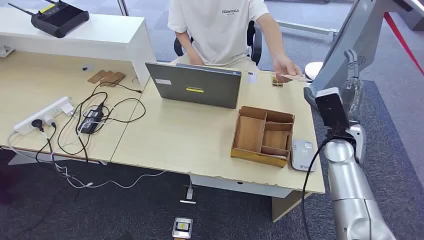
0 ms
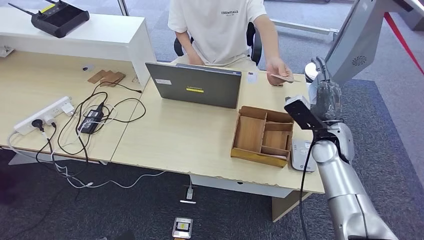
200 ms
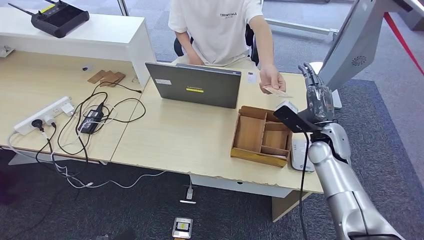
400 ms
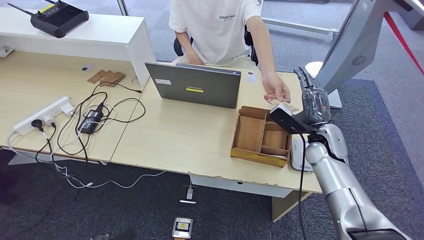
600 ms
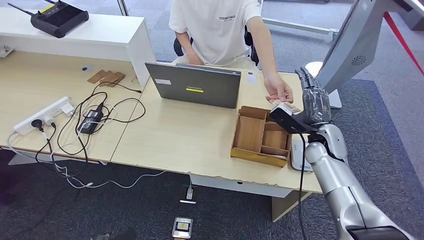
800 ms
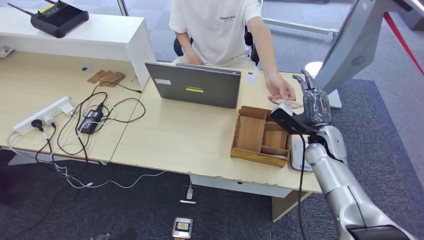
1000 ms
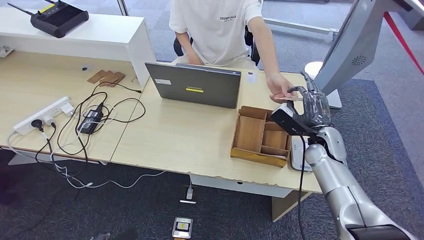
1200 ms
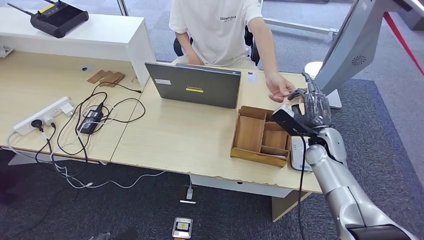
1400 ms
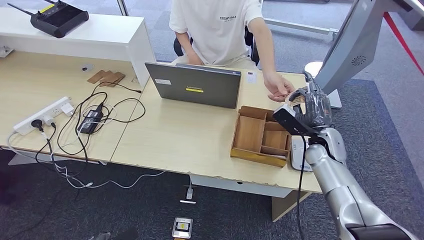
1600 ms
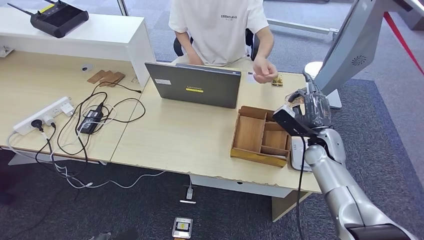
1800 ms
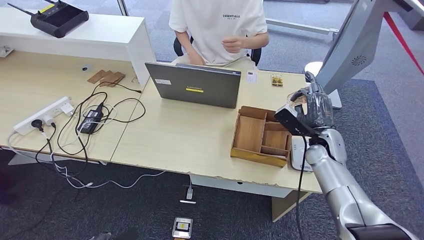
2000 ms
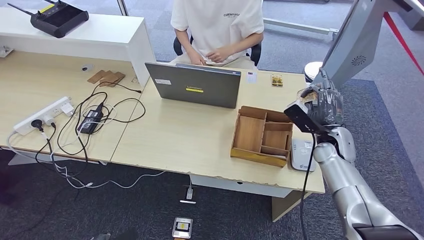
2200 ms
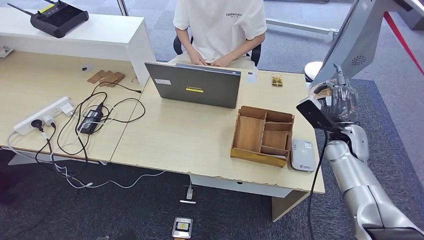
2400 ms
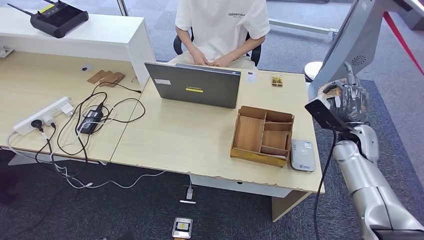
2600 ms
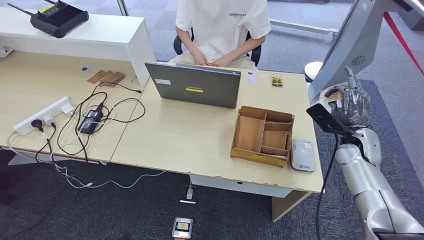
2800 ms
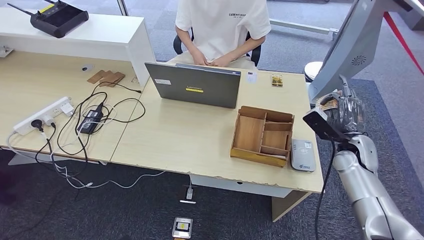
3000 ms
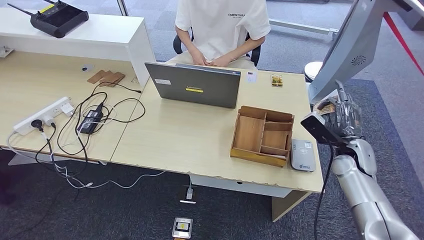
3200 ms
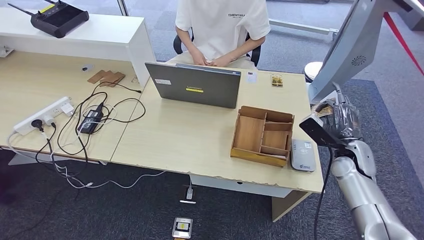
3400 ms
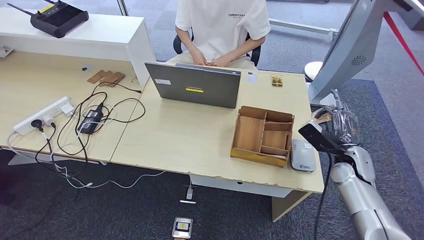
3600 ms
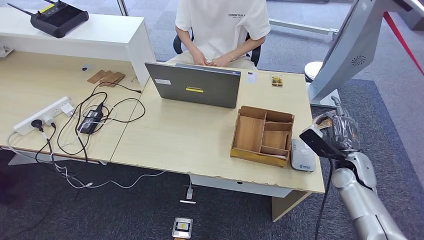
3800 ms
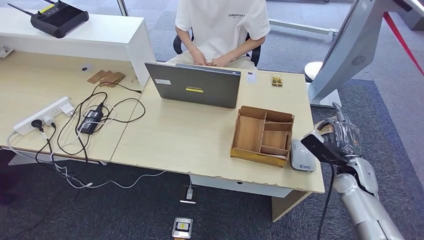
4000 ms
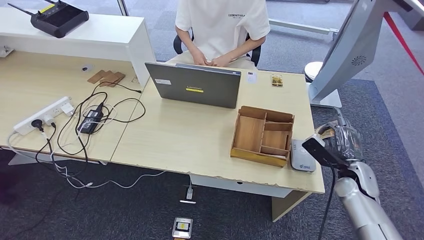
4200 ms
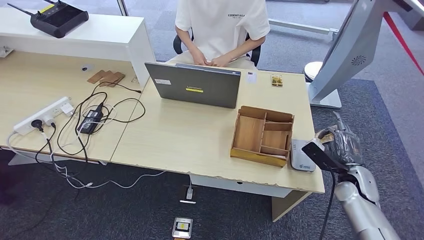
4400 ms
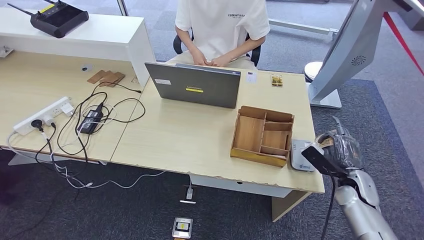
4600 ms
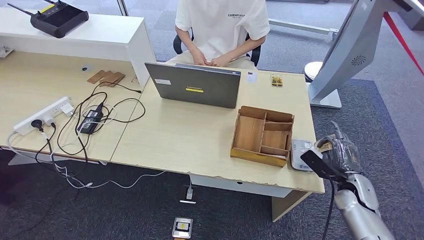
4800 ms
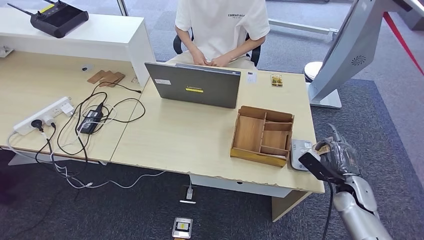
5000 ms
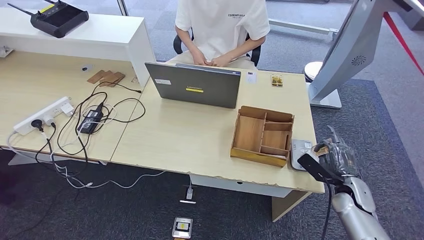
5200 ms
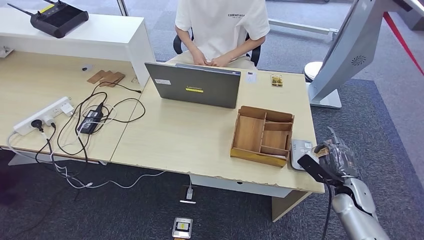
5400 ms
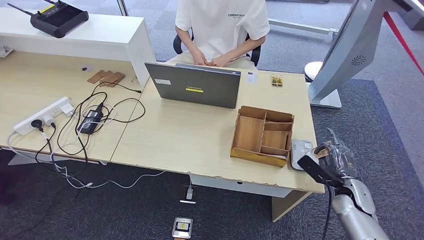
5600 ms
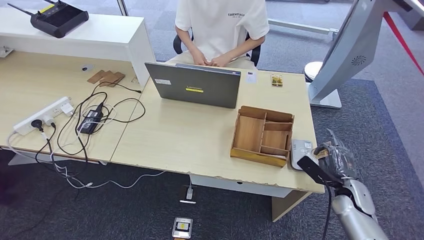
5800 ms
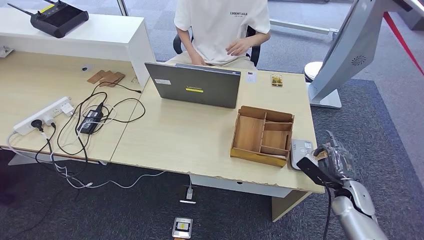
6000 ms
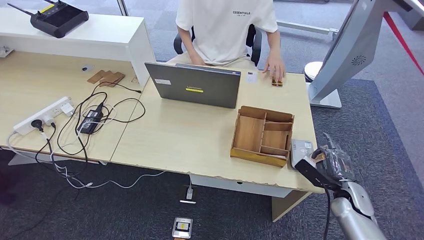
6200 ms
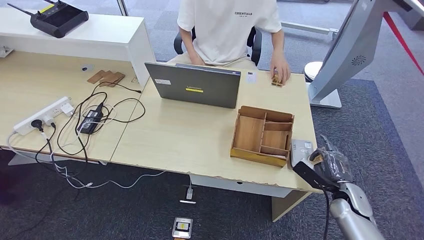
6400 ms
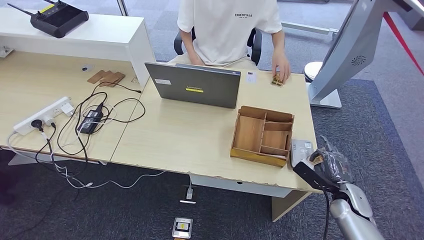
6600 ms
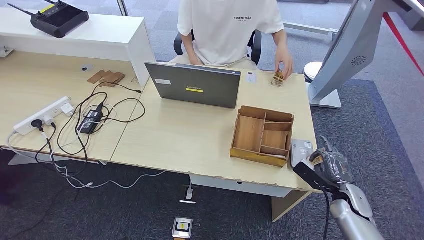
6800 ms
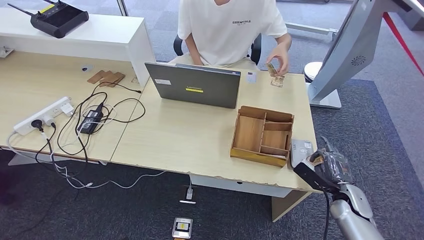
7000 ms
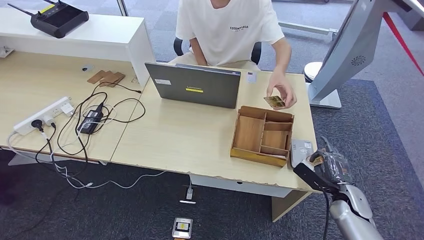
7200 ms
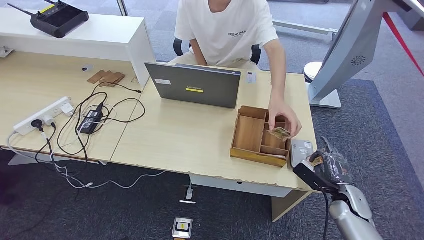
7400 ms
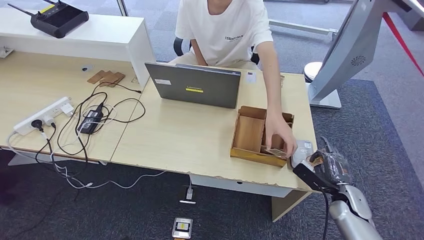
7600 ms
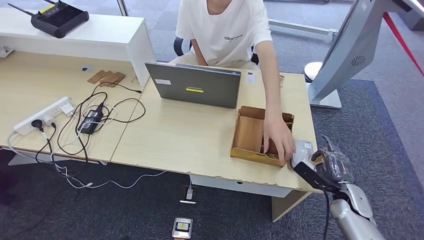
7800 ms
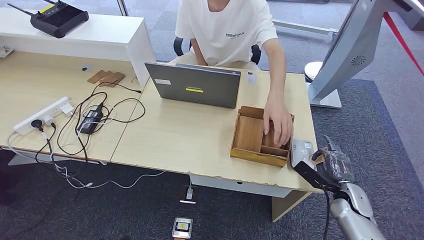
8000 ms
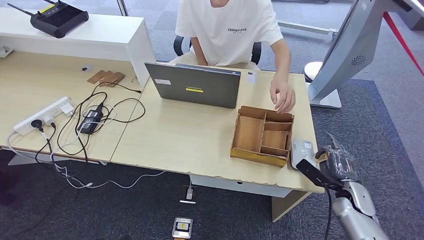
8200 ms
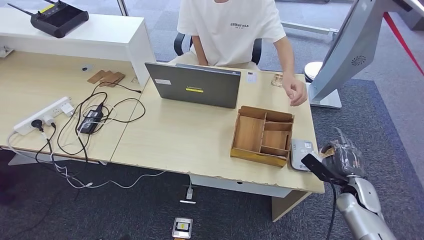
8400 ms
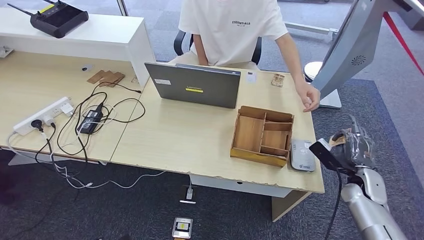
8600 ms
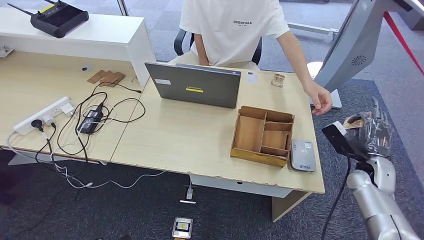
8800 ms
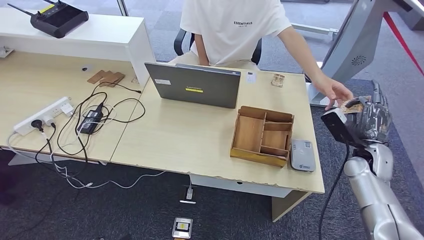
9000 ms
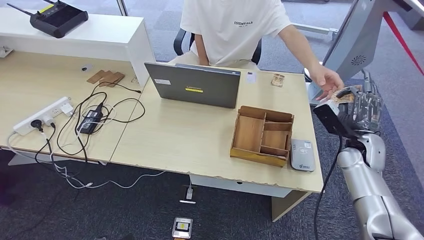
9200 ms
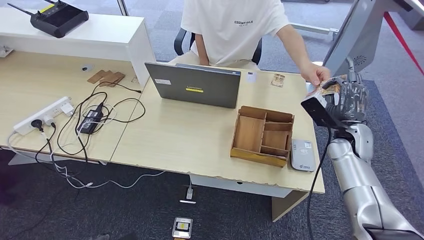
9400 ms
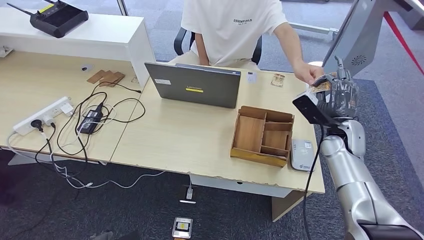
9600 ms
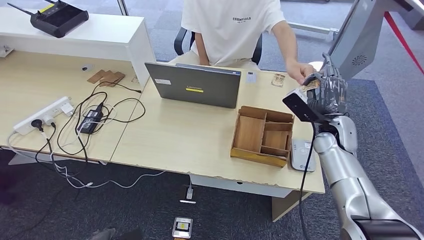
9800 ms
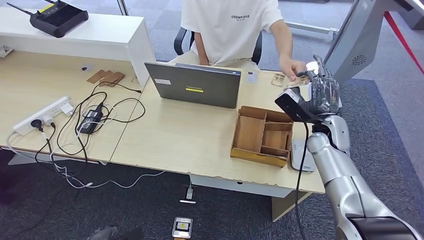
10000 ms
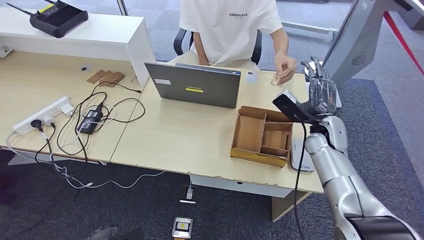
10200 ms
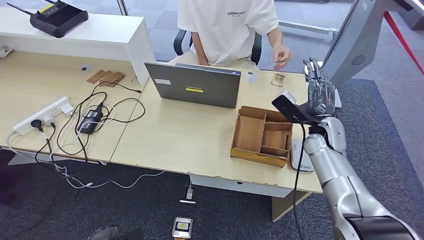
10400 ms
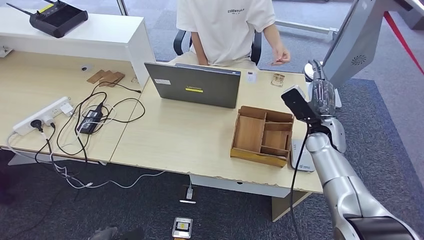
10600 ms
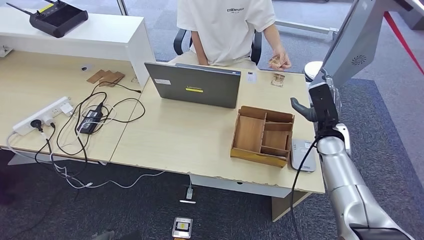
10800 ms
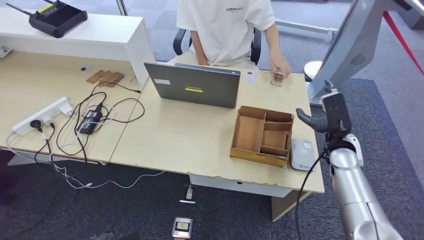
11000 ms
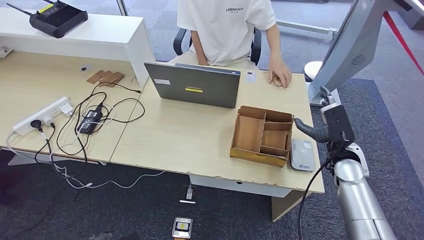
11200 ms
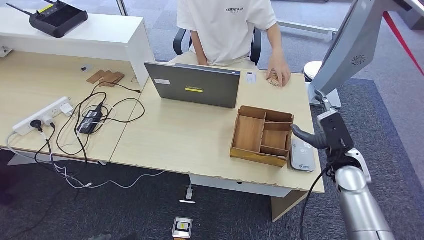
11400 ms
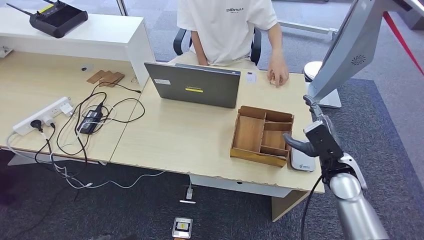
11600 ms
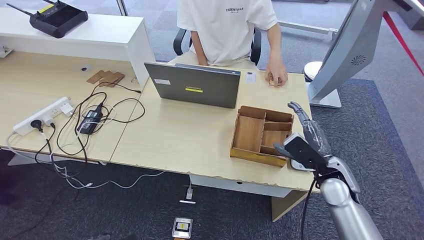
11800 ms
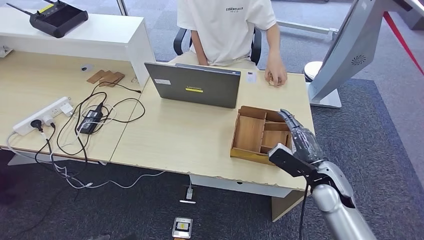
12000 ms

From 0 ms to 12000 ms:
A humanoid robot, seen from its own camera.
Step, from 0 ms to 1800 ms: Take the ID card from the person's hand.
Step, from 2000 ms to 8000 ms: Place the ID card on the card reader.
Step, from 8400 ms to 10800 ms: Hand the ID card to the person.
From 1600 ms to 3000 ms: The right hand shifts about 5 cm to the right.
From 3000 ms to 4400 ms: The right hand heads downward and backward, covering about 10 cm.
From 4400 ms to 6000 ms: The hands move only a little.
From 6000 ms to 7600 ms: The hands move only a little.
From 7600 ms to 9000 ms: The right hand moves upward and forward, roughly 15 cm.
From 9000 ms to 10400 ms: The right hand travels to the left by some 10 cm.
From 10400 ms to 12000 ms: The right hand moves backward and downward, about 15 cm.

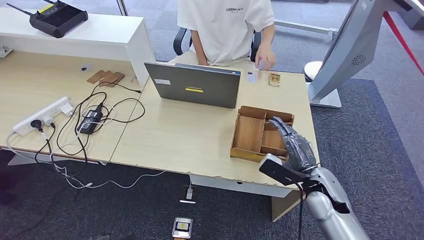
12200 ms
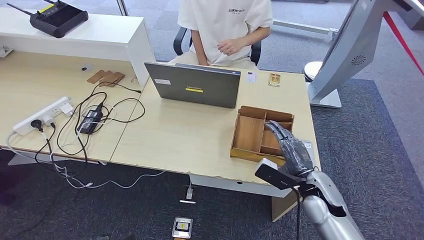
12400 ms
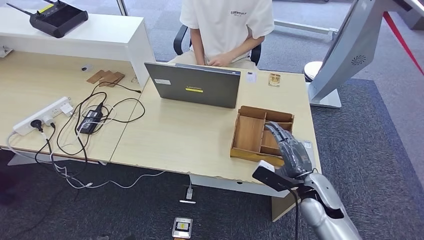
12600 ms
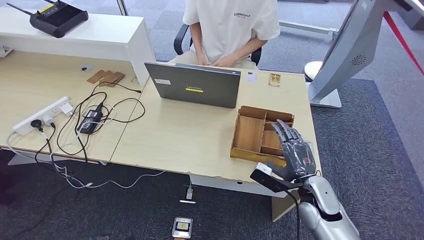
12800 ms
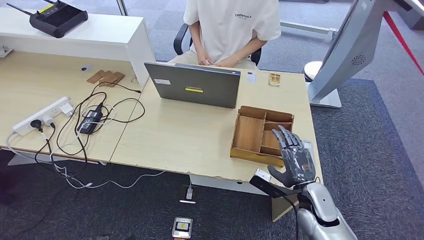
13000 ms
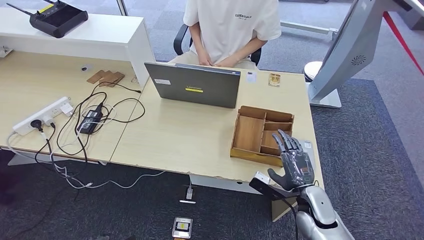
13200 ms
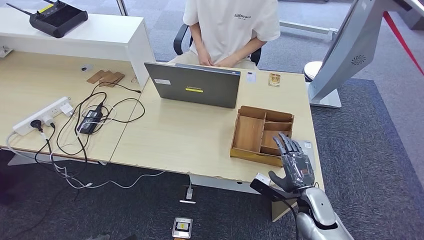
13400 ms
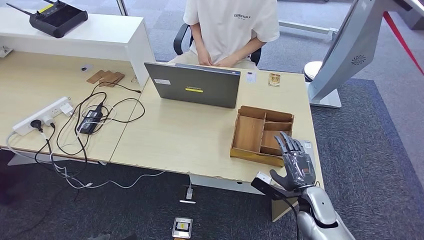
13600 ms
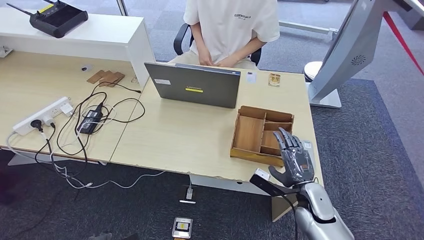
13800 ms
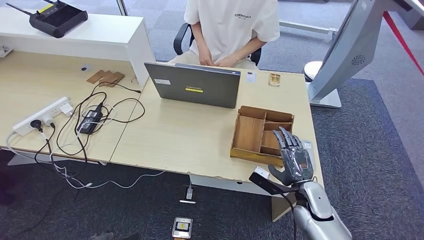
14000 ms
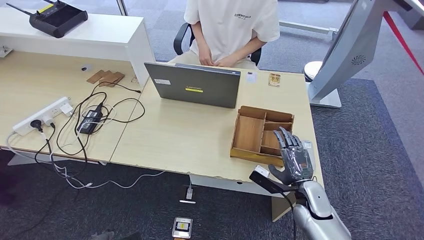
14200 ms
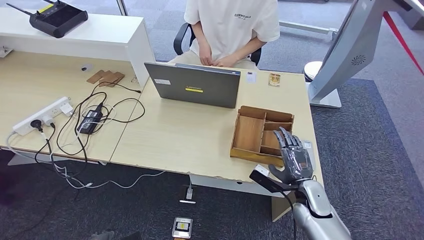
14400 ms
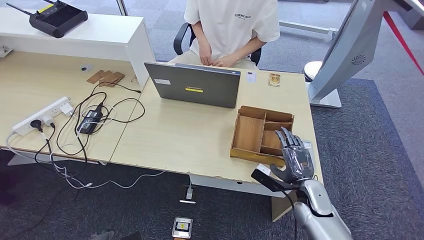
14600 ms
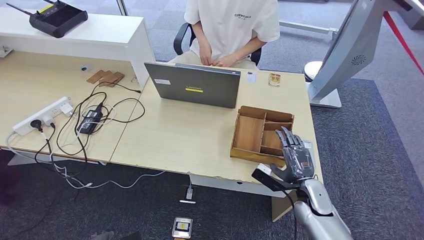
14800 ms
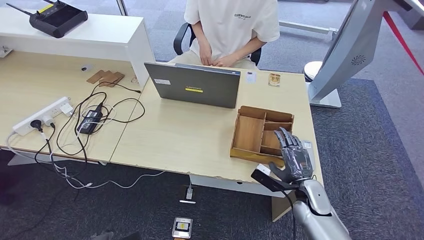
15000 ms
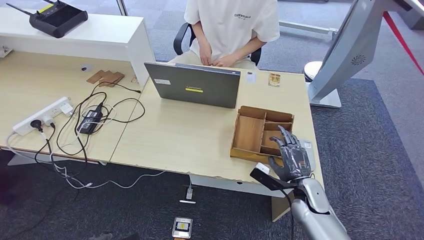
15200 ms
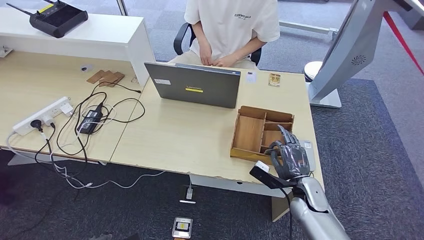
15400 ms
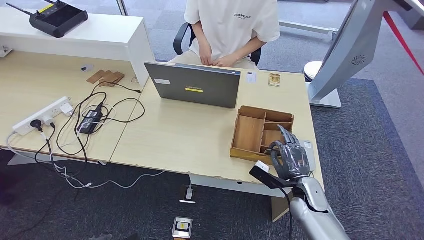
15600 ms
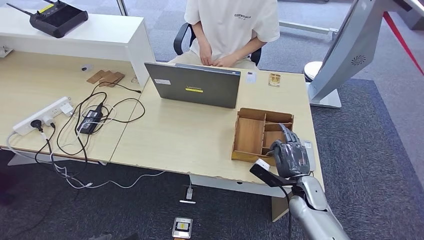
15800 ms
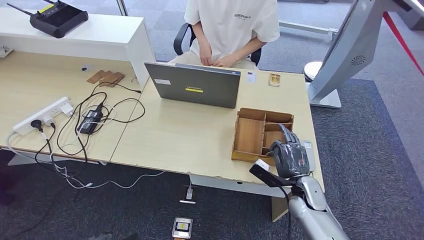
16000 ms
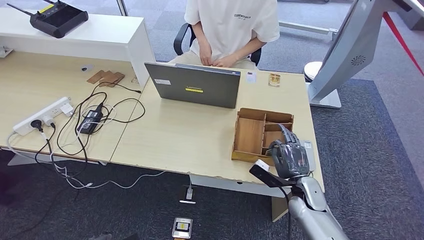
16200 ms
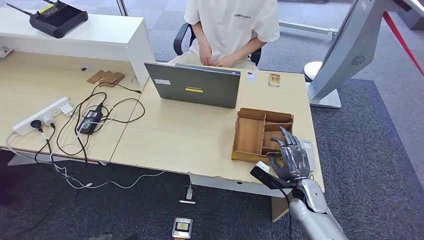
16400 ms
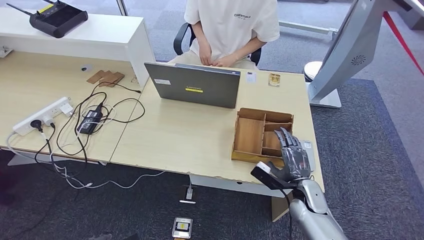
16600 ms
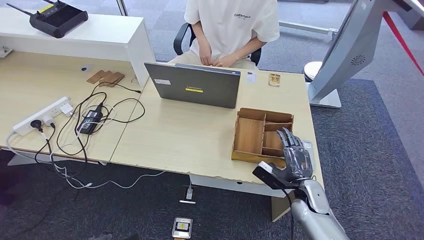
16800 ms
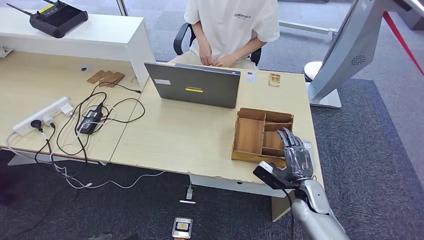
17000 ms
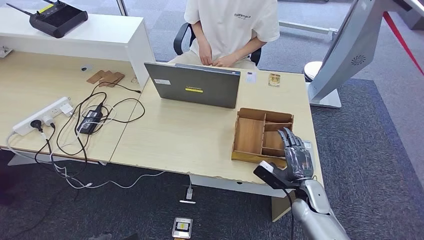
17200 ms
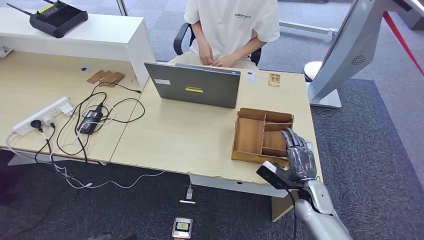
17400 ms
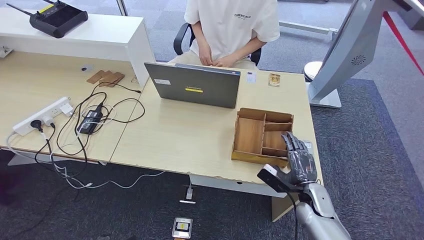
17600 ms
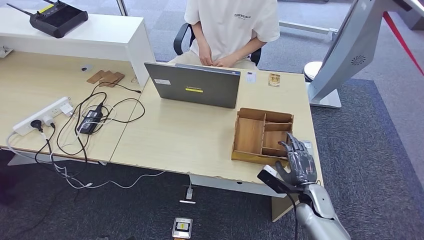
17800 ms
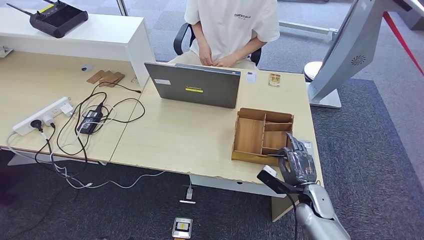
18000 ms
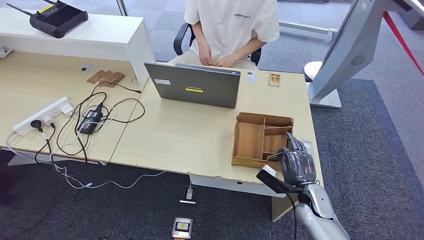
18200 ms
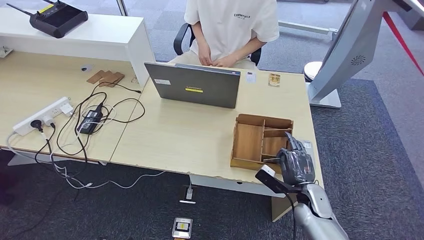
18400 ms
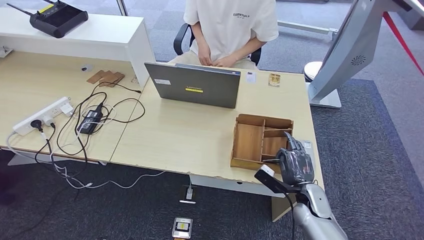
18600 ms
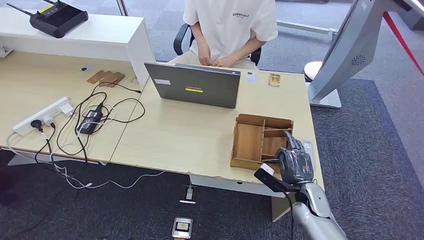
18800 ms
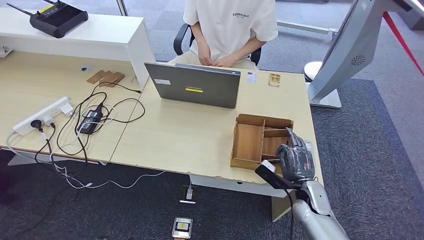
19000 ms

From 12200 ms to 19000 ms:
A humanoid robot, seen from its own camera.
From 12200 ms to 13600 ms: The right hand shifts some 5 cm downward.
From 13600 ms to 15000 ms: There are only small adjustments of the hands.
From 15000 ms to 16200 ms: Both hands stay put.
From 16200 ms to 17600 ms: The hands make only small movements.
From 17600 ms to 19000 ms: Neither hand changes place.
